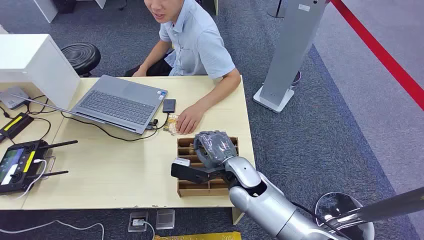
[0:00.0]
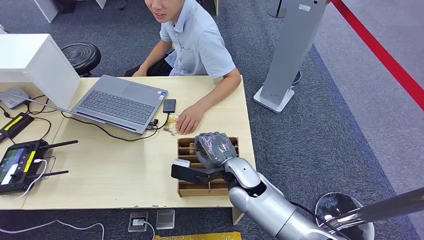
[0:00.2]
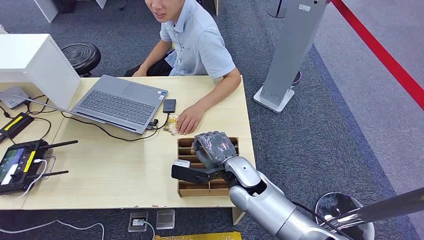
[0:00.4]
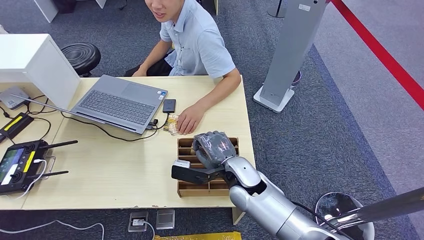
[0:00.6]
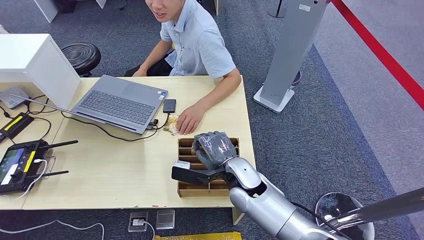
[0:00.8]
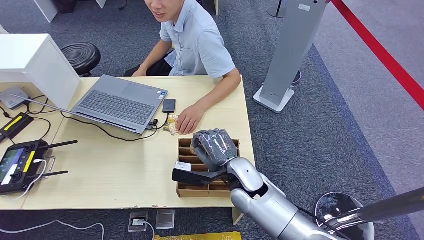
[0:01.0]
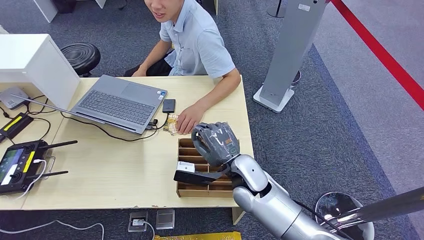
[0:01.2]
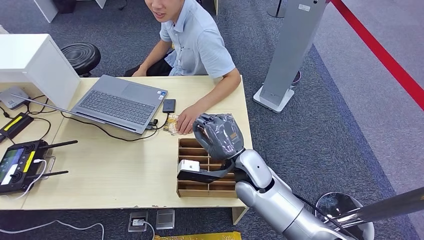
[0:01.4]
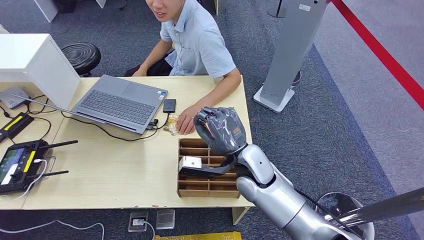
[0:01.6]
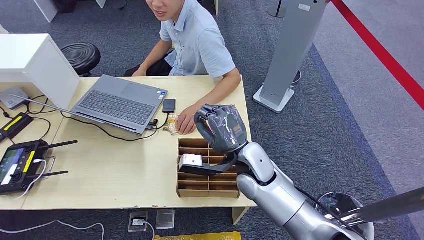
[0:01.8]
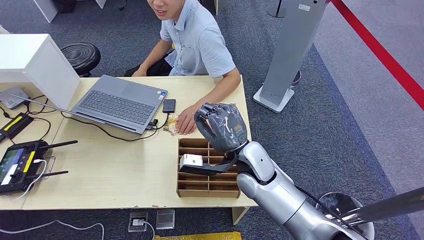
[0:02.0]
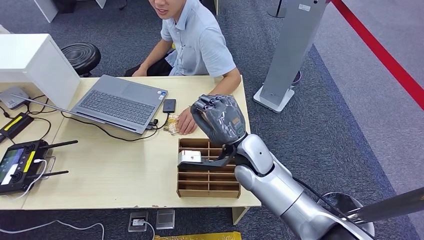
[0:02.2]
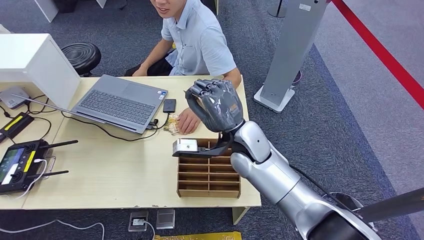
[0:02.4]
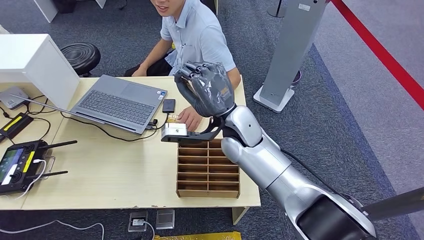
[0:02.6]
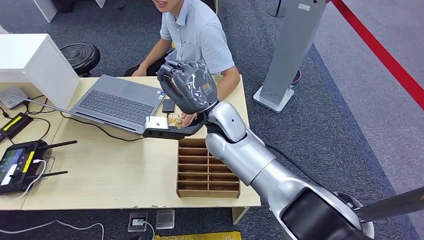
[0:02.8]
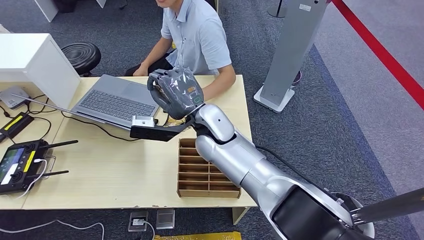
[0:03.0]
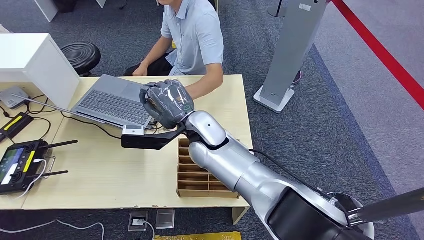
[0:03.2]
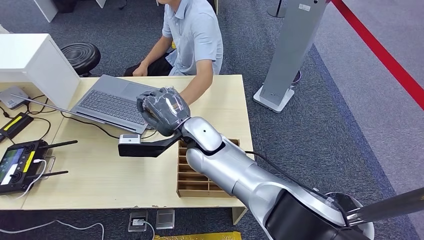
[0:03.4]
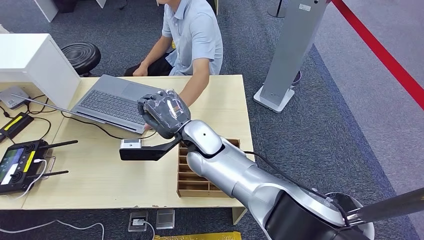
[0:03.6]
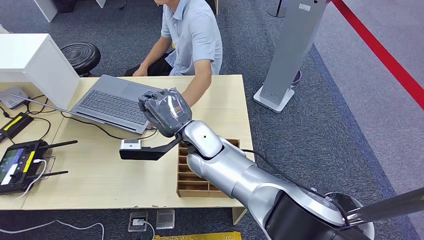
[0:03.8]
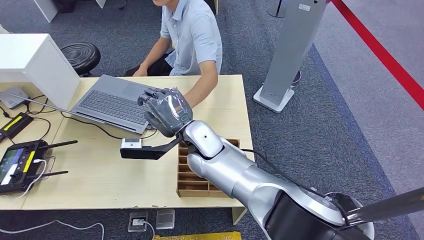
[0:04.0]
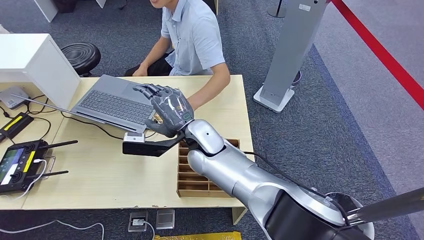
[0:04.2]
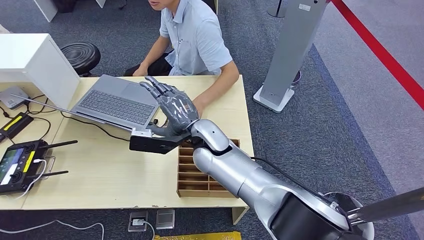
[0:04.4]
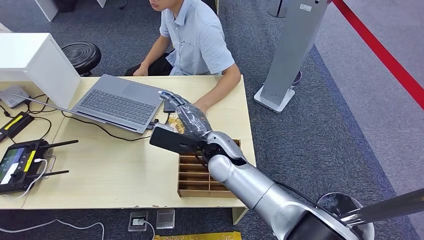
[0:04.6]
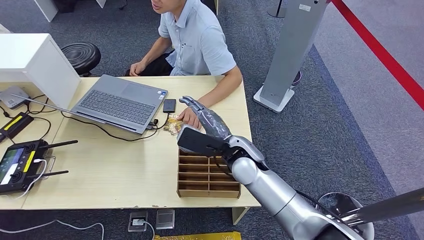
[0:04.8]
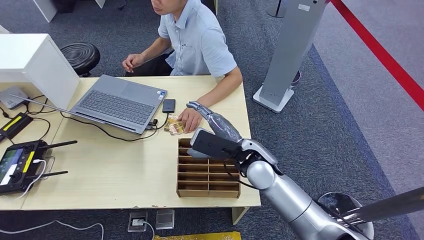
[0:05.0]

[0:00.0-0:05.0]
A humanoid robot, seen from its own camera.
Step, 0:00.0 to 0:02.0: Pick up the room card from the card holder.
Step, 0:02.4 to 0:05.0: Hand the room card to the target.
0:01.6 to 0:03.4: The right hand shifts about 15 cm to the left and upward.
0:03.4 to 0:05.0: The right hand heads to the right, covering about 15 cm.
